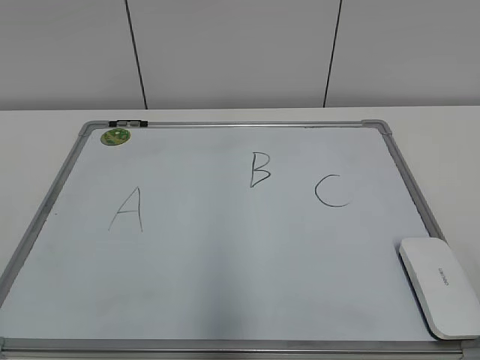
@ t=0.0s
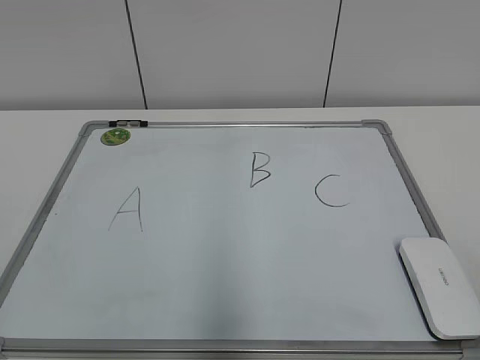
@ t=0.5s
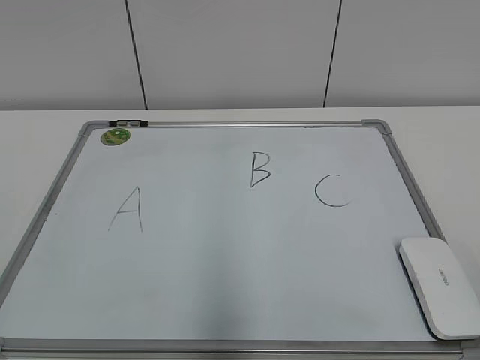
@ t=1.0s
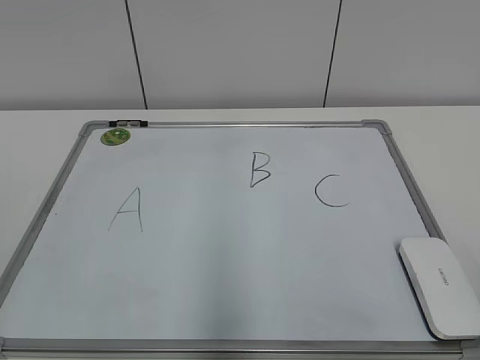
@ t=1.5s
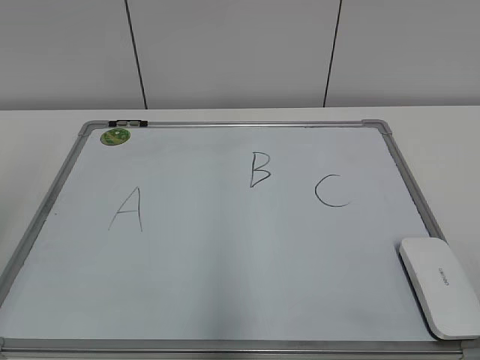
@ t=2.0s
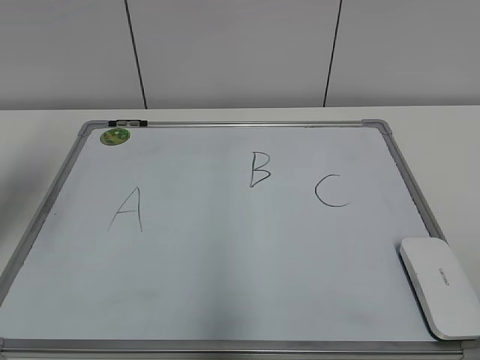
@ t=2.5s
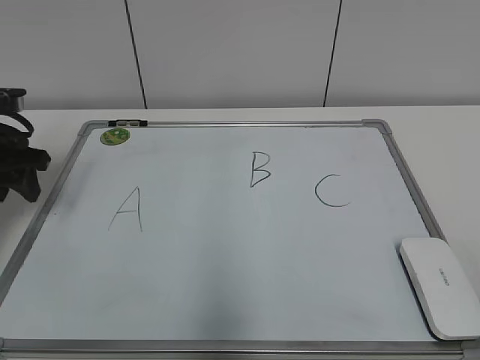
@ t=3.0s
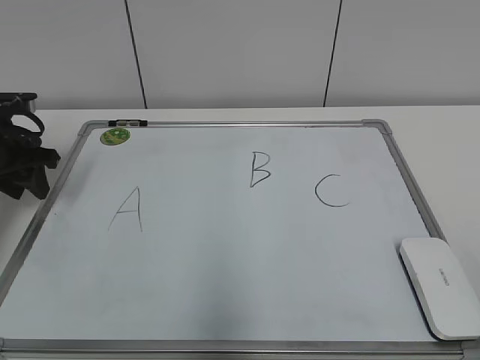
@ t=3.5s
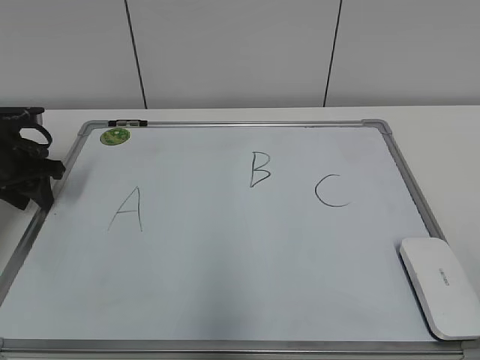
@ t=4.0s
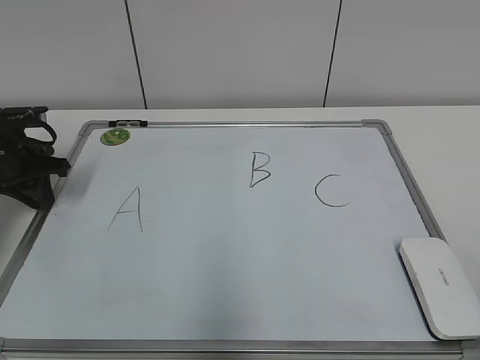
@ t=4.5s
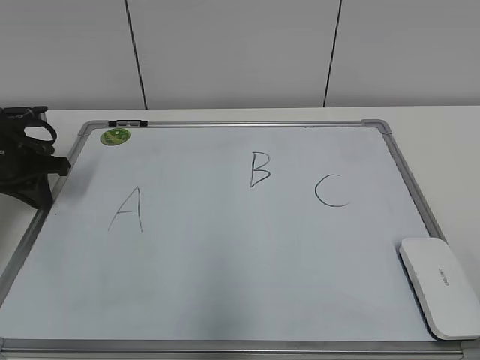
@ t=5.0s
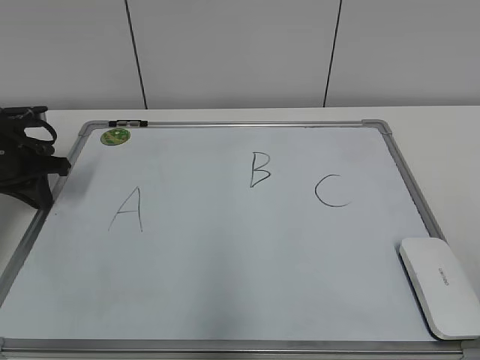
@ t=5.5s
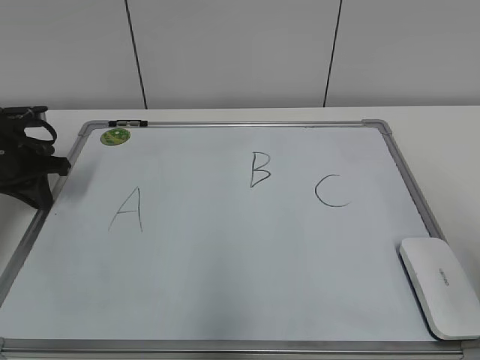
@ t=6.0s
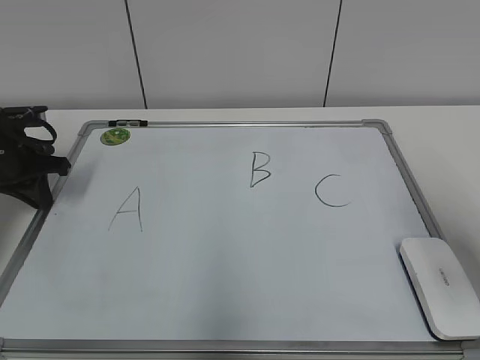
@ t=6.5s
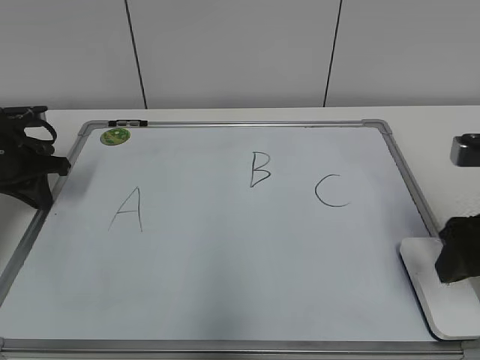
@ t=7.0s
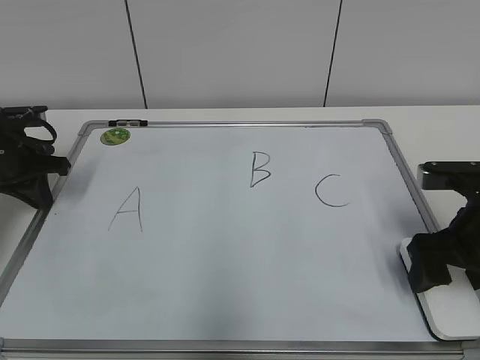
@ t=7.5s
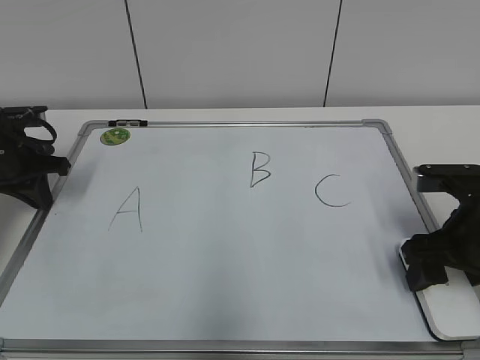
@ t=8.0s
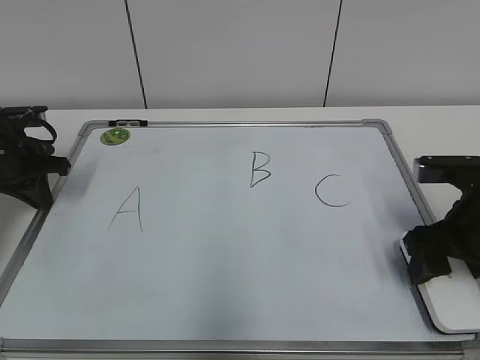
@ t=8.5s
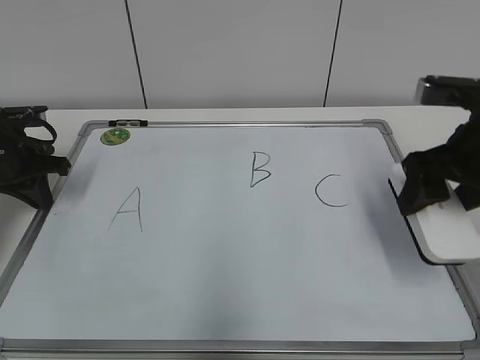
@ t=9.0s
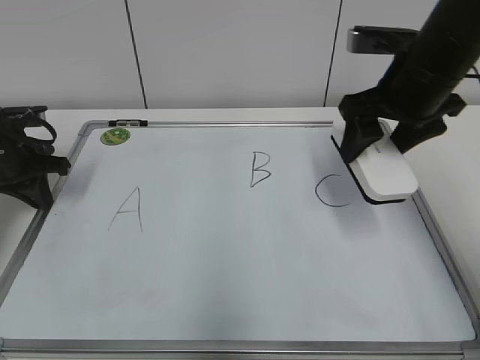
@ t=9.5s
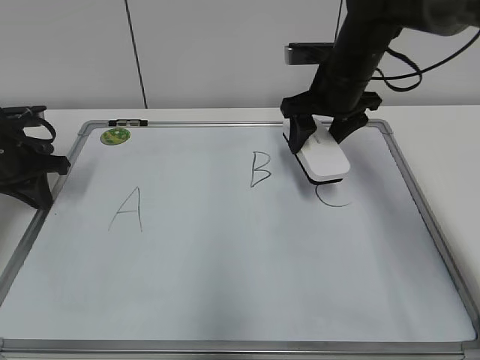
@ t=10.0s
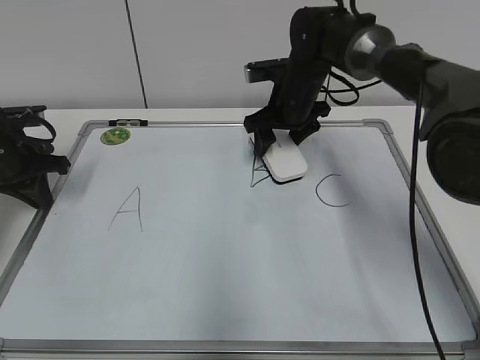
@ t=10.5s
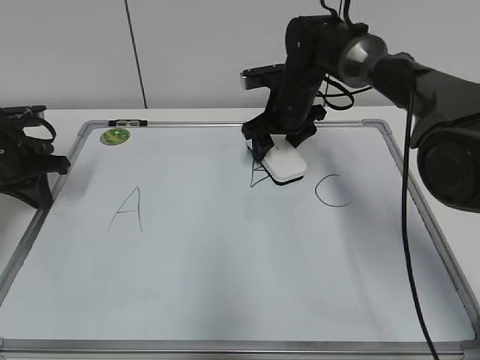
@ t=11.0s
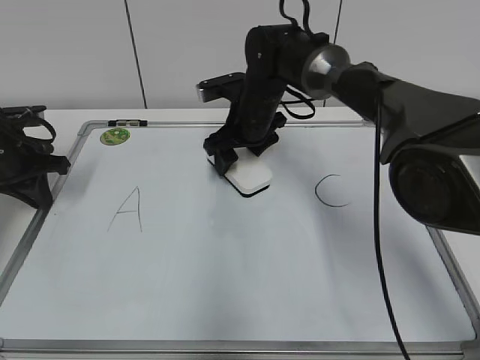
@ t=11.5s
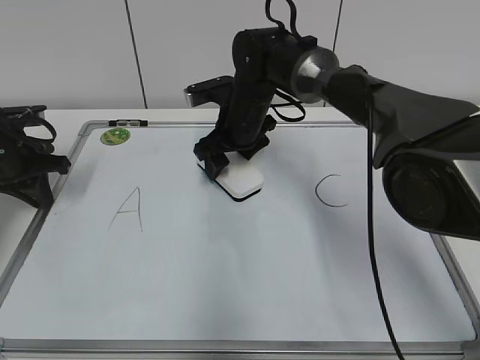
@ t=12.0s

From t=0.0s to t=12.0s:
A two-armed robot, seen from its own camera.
Task of the whole recording: pick up the eraser on the blackboard and erase the letter "B".
Step, from t=0.0s to t=5.0s: Hold the drawing board steady with your left hand.
Step, from t=5.5s to t=8.0s: Grab the eraser with your right hand.
From t=2.0s to t=4.0s: The left gripper goes roughly 35 cm forward and downward, and closes up.
From t=4.0s to t=6.0s: The left gripper closes up.
From t=6.0s to t=8.0s: The right gripper shifts roughly 25 cm forward and downward, and opens, then closes once more.
From t=8.0s to t=10.0s: The right gripper goes approximately 20 cm forward, to the left and upward.
From t=10.0s to t=12.0s: The right gripper goes approximately 15 cm to the left and downward.

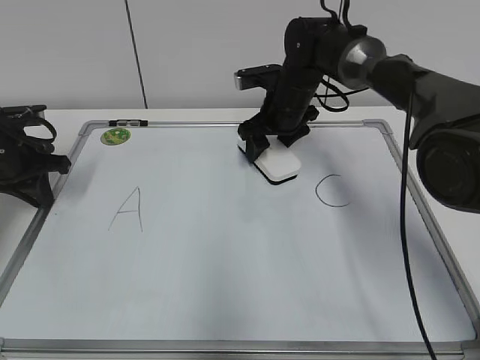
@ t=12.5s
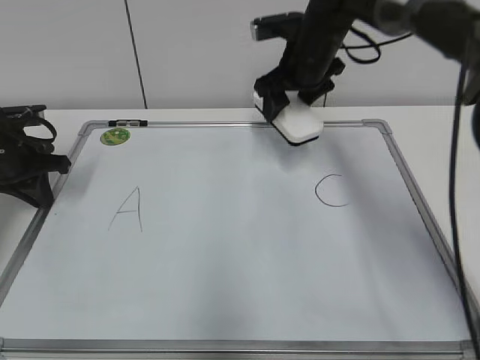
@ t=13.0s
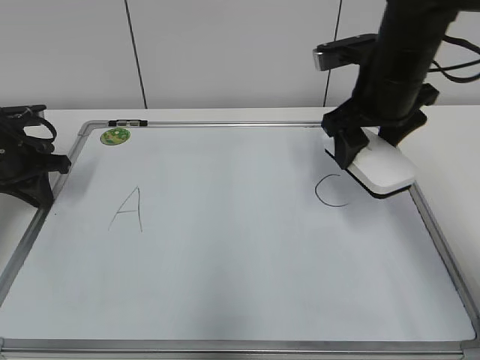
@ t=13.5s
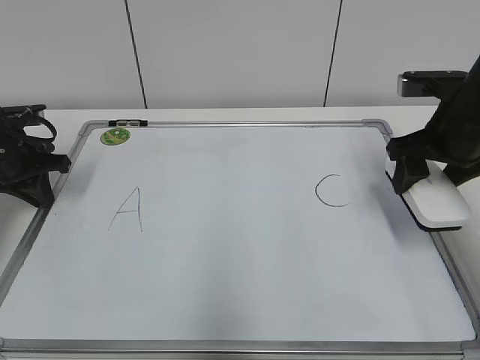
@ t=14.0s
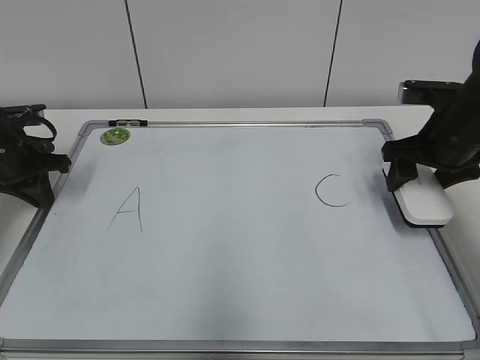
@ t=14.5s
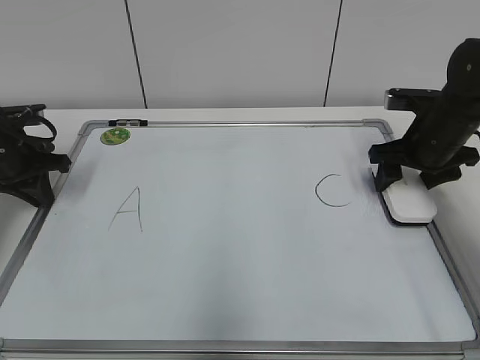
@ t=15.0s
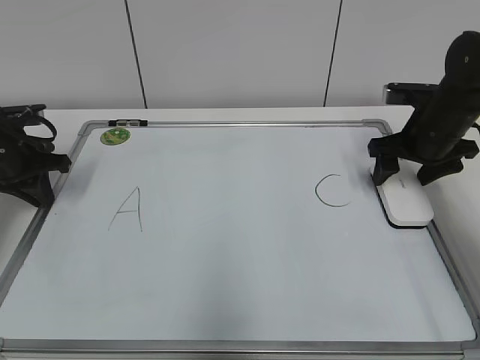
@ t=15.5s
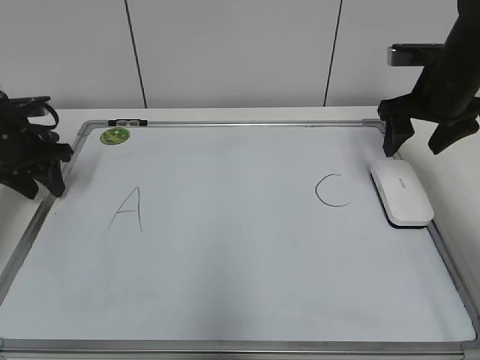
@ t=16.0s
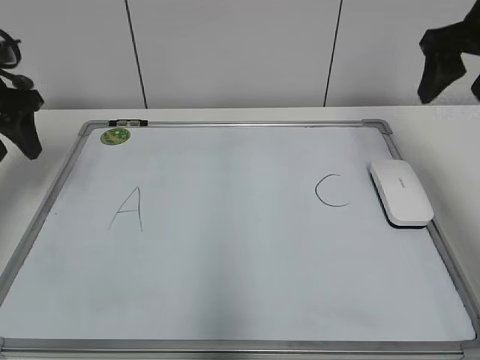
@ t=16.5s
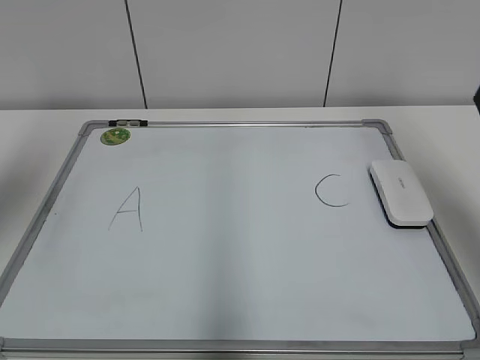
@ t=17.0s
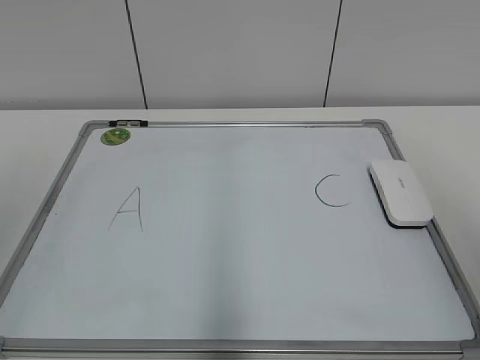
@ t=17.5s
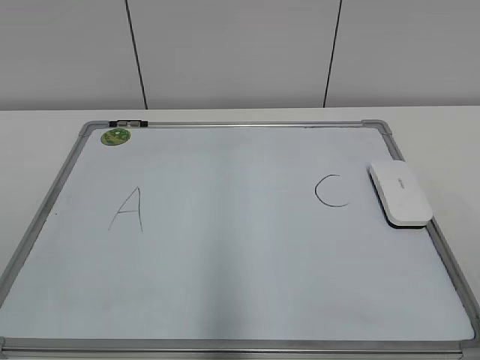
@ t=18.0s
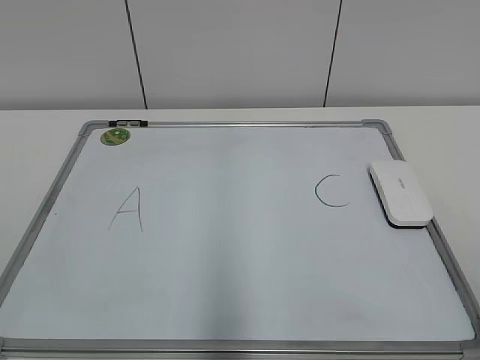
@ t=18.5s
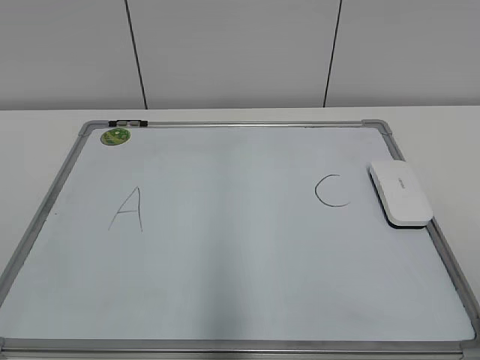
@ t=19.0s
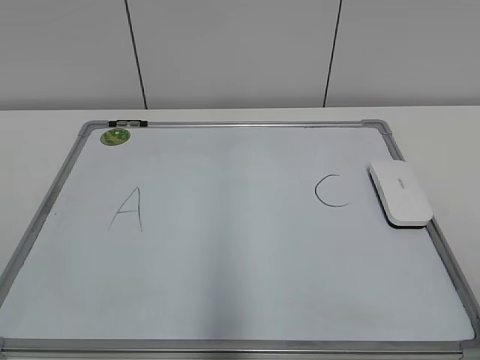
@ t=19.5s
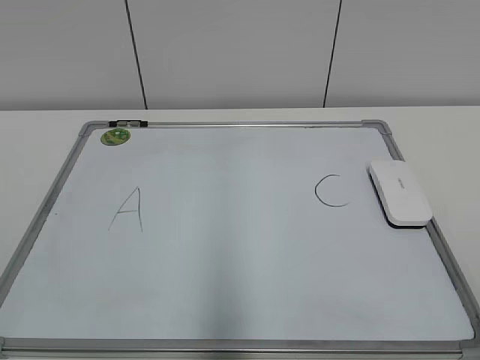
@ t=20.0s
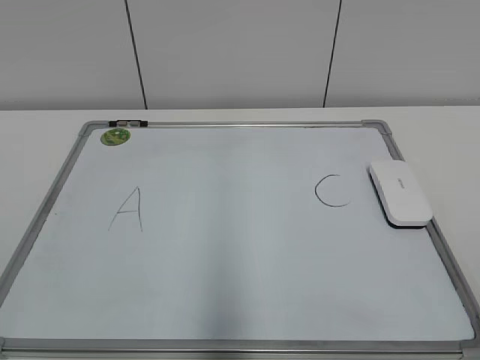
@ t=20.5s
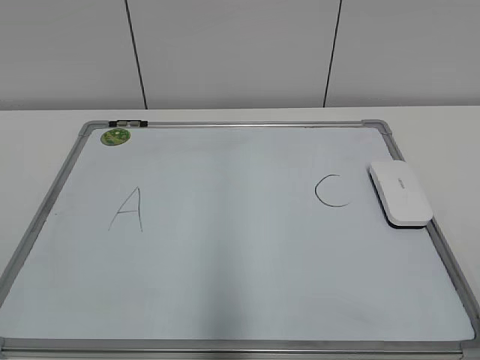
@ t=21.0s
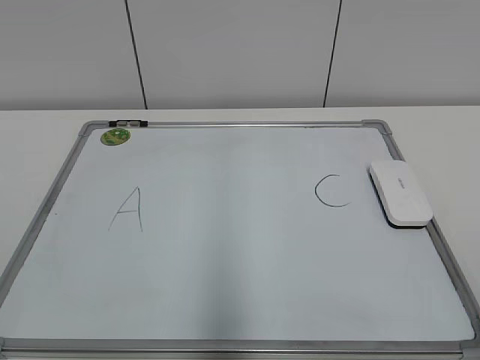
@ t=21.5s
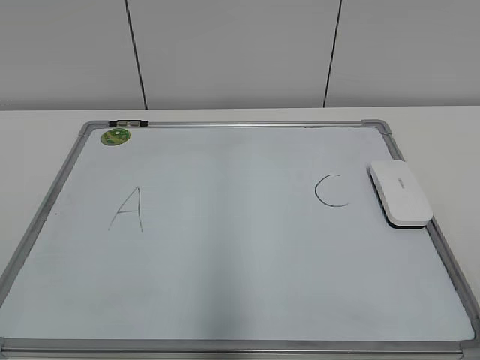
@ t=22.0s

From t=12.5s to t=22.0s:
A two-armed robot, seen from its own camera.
Task of the whole recording: pick up the eraser on the blackboard and erase the letter "B".
Step, from t=13.0s to t=15.0s: Put down the eraser with your right hand.
From t=12.5s to t=14.5s: The right gripper is displaced to the right and backward by about 20 cm.
From t=14.5s to t=16.5s: The two grippers go about 10 cm upward. The right gripper opens up; the left gripper opens up.
From t=16.5s to t=18.0s: The grippers both shift backward by some 35 cm.
From t=20.0s to t=22.0s: Neither gripper changes place.

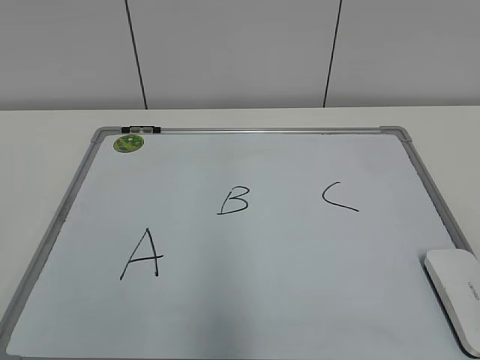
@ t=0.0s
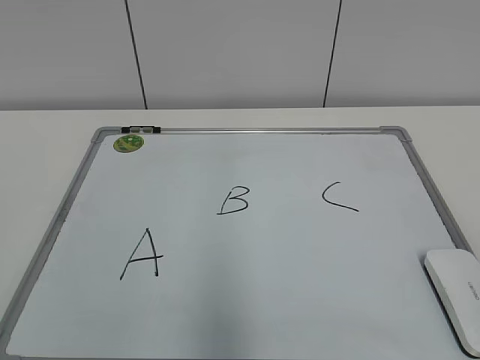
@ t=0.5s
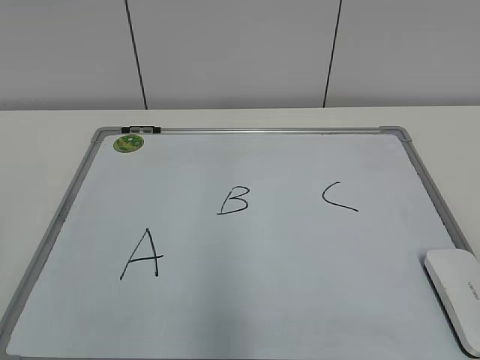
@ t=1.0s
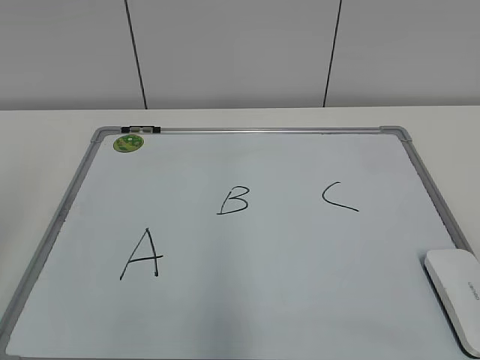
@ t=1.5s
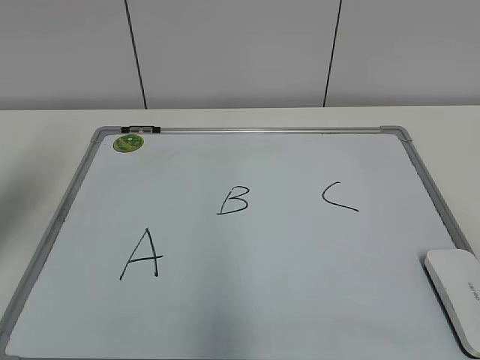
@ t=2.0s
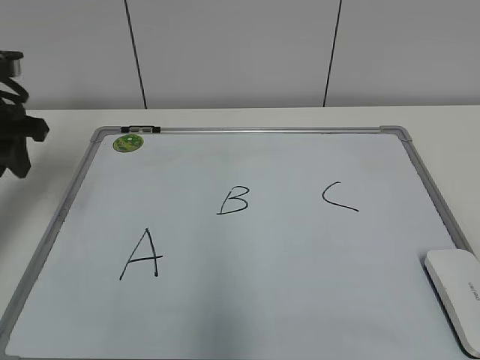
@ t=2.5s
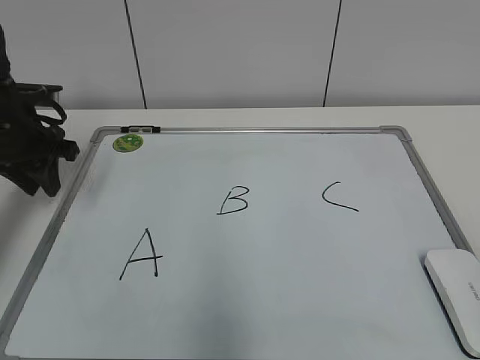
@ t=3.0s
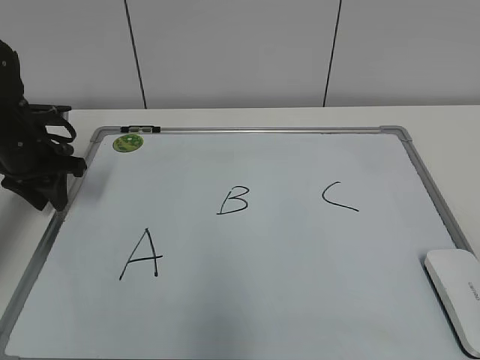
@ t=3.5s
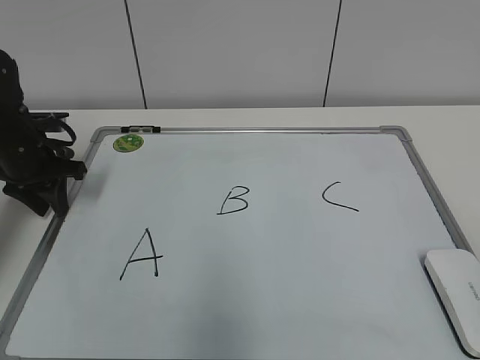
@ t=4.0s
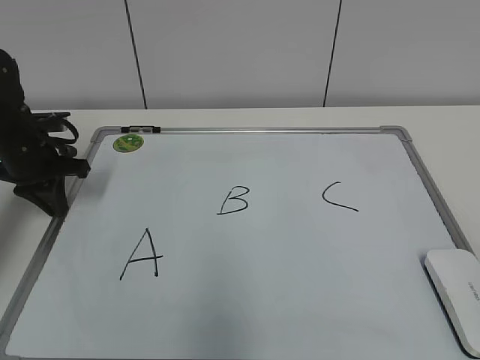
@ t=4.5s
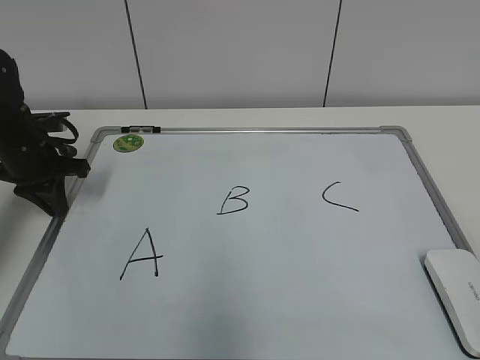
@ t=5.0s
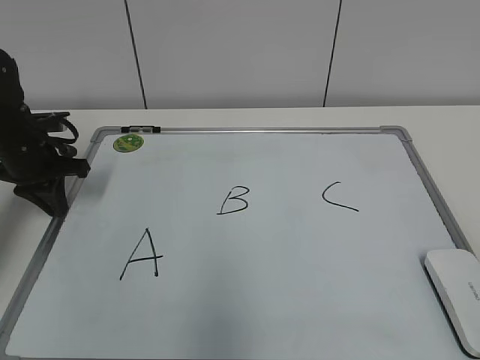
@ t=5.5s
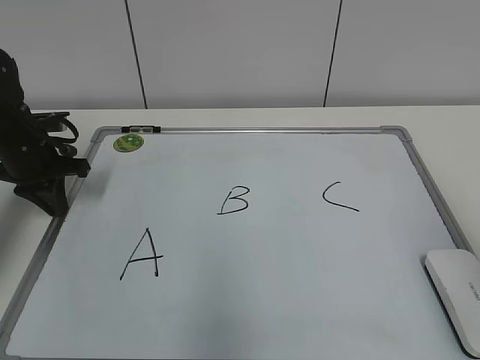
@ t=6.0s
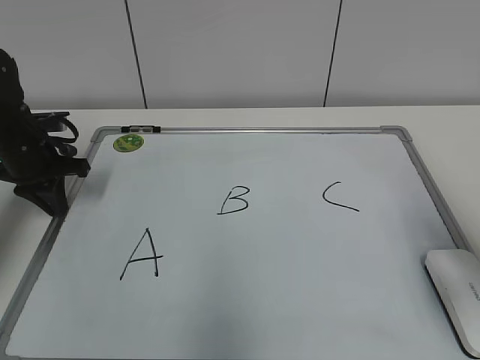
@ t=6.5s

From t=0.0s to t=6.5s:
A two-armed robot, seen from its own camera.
Task of the whole recording: pick up the eraser on the blackboard and erase the letter "B".
Step, from t=0.0s to t=4.5s: Hold the drawing board steady with your left hand.
From t=2.0s to t=4.5s: The left gripper moves downward and forward, about 20 cm, and closes.
From t=4.5s to t=6.5s: The right gripper goes roughly 20 cm forward.
